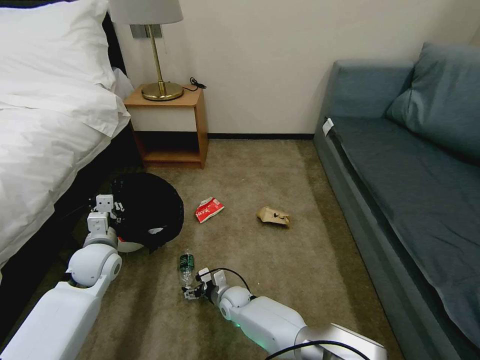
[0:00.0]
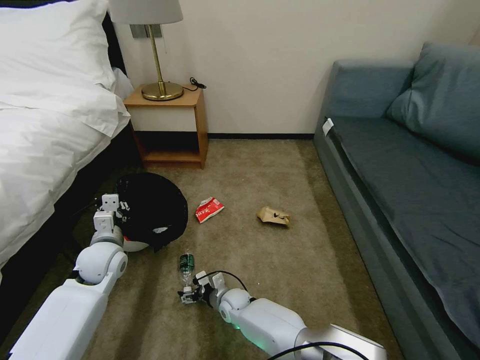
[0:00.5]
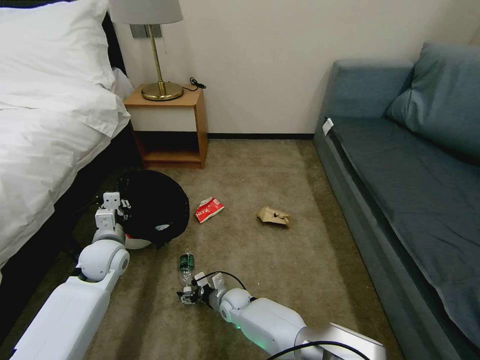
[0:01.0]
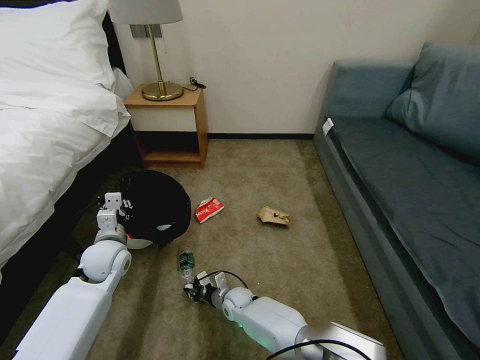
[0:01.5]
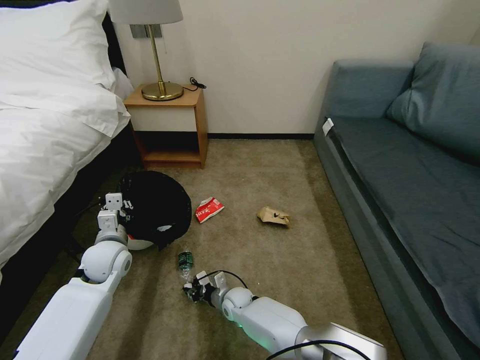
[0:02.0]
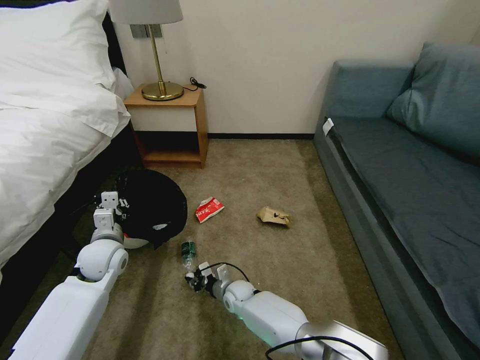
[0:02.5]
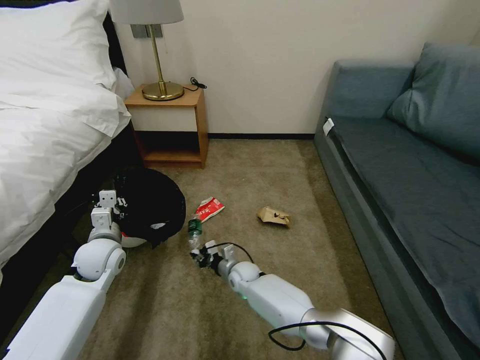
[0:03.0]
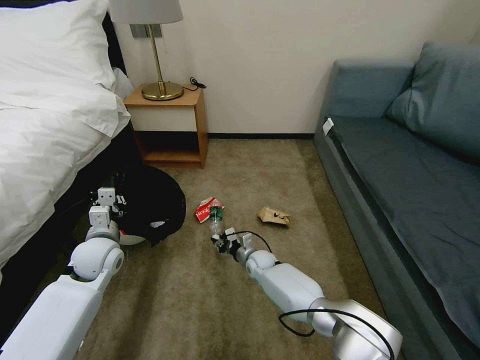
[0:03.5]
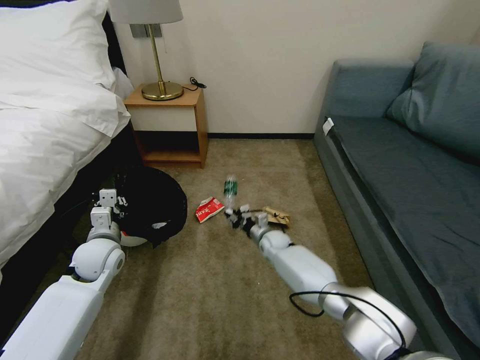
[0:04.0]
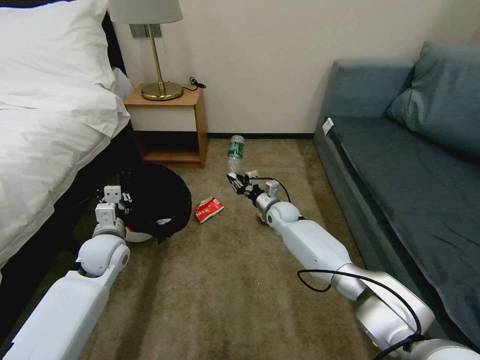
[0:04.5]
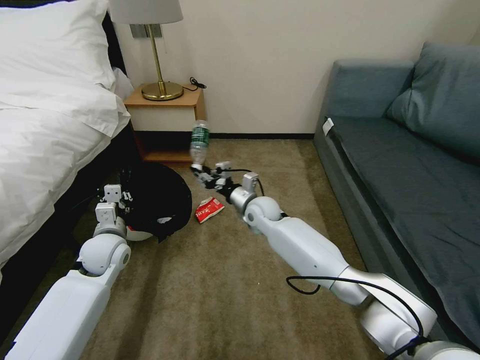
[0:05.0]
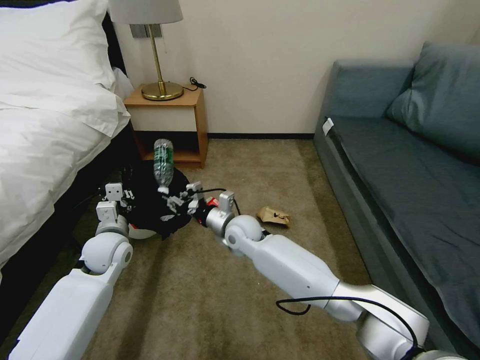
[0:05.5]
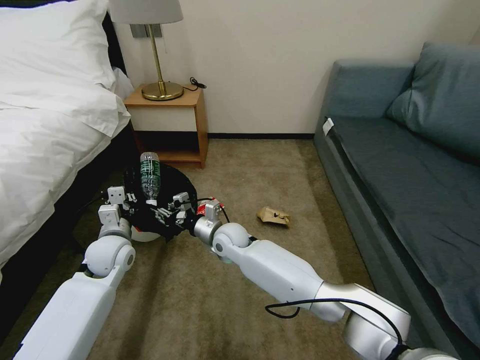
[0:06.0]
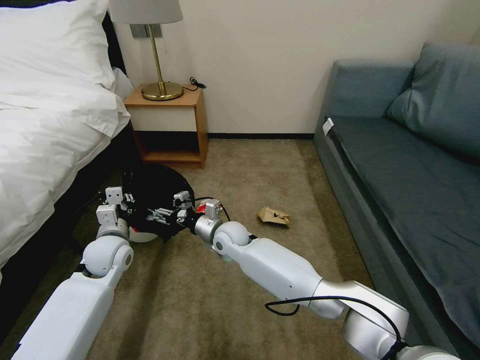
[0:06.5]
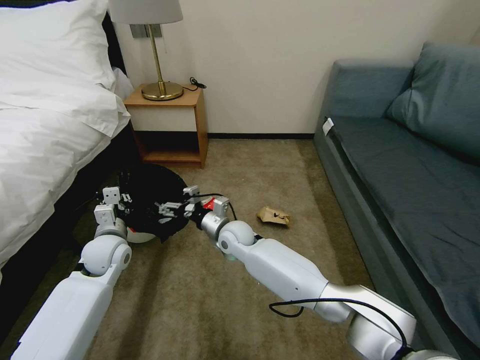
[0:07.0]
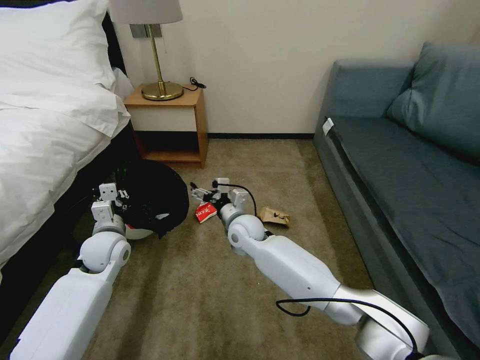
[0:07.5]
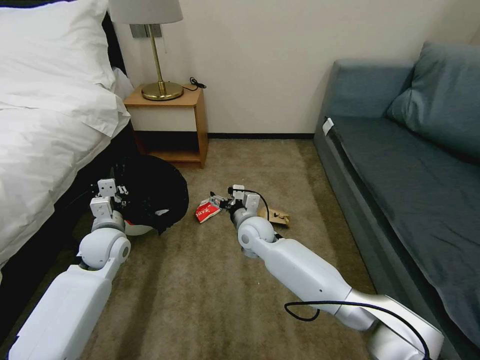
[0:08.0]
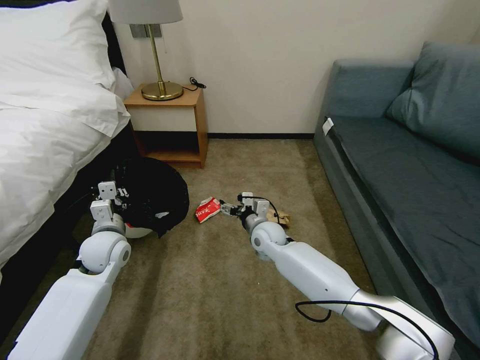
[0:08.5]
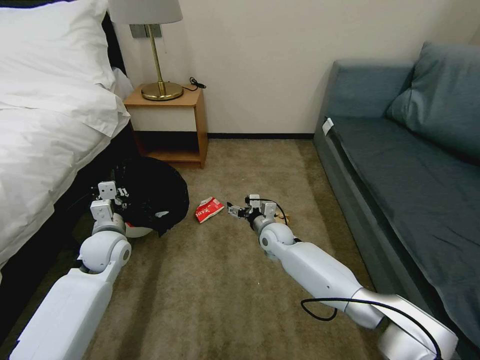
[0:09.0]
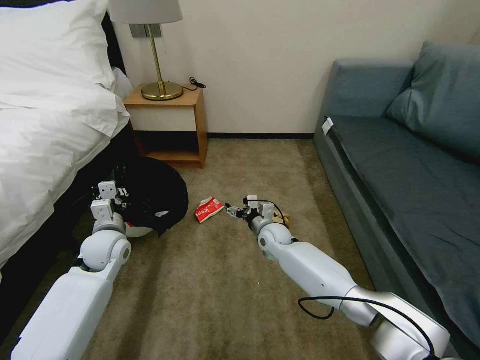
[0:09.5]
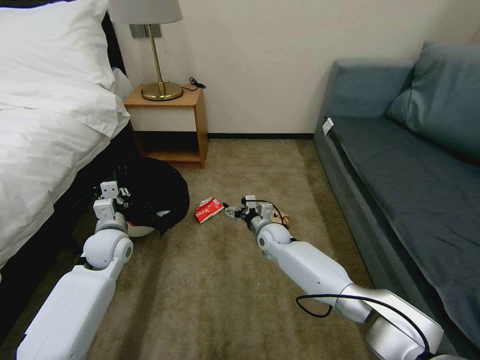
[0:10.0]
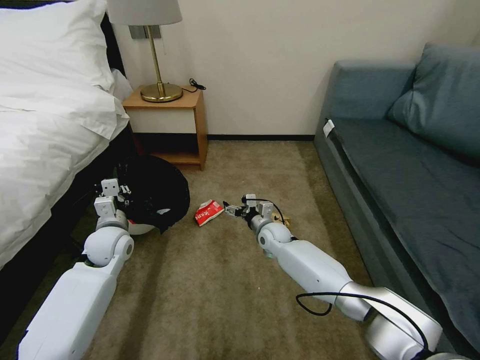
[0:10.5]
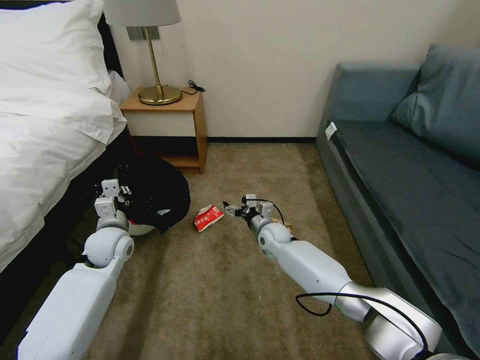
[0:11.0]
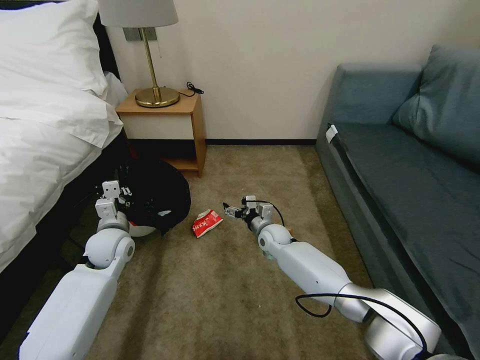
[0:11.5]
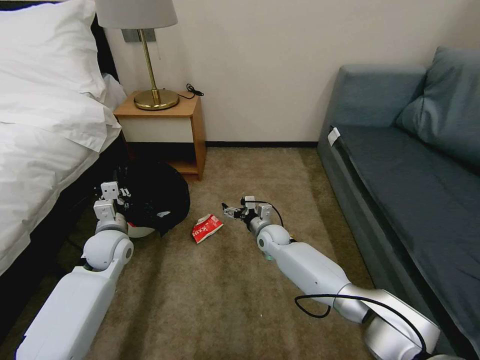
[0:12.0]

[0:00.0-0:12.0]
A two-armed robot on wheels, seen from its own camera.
Task of the whole recording: Pick up the trash bin, then pick up the garbage on the floor and place it into the trash bin.
0:00.0 to 0:02.0: The right gripper closes.
0:02.0 to 0:04.0: The right gripper heads forward, to the right and upward, covering approximately 20 cm.
0:04.0 to 0:06.0: The right gripper travels to the left, upward and backward by approximately 20 cm.
0:06.0 to 0:08.0: The right gripper is displaced to the right by some 5 cm, and opens its fingers.
0:08.0 to 0:10.0: The right gripper goes some 10 cm downward and to the right.
0:10.0 to 0:12.0: Neither gripper changes place.

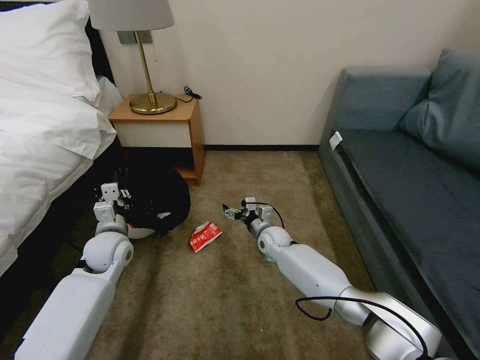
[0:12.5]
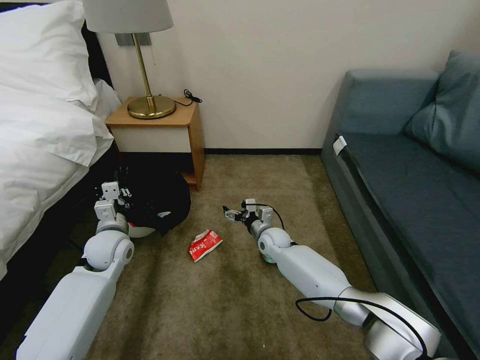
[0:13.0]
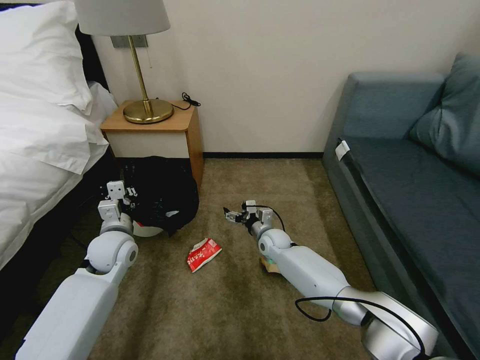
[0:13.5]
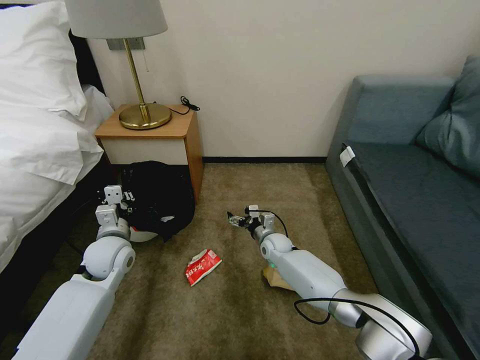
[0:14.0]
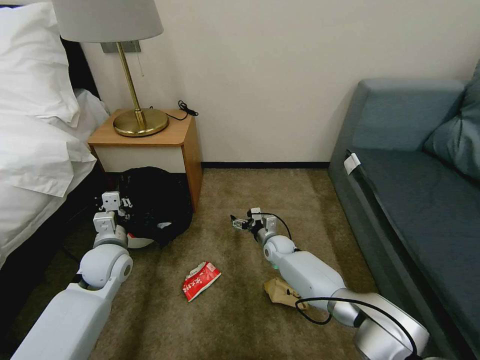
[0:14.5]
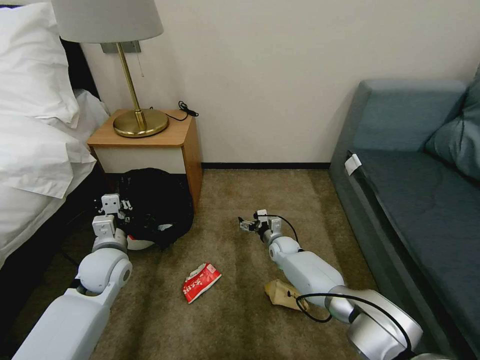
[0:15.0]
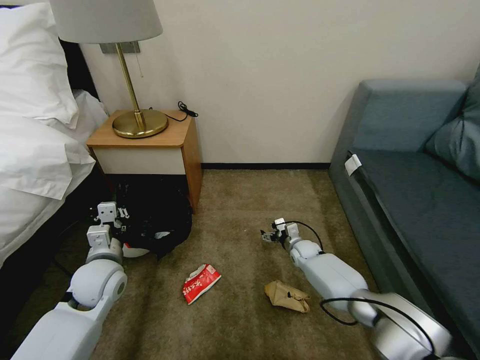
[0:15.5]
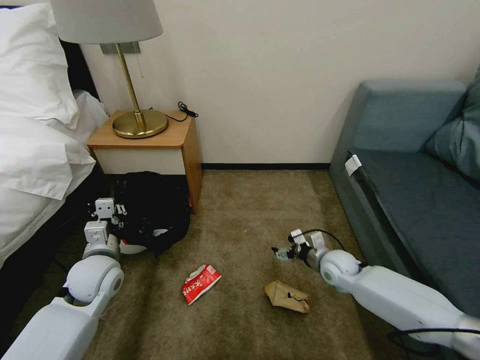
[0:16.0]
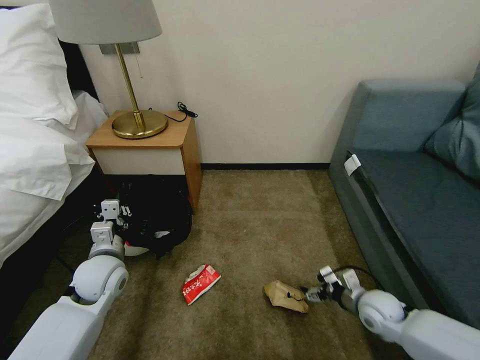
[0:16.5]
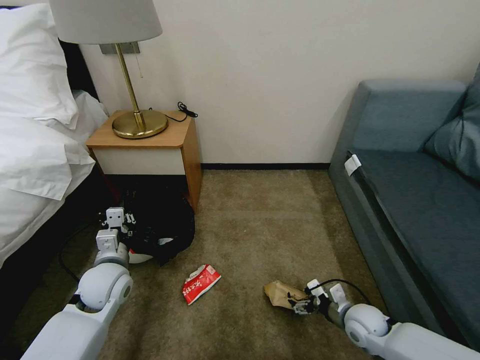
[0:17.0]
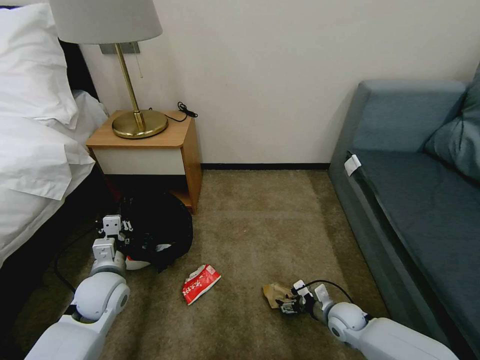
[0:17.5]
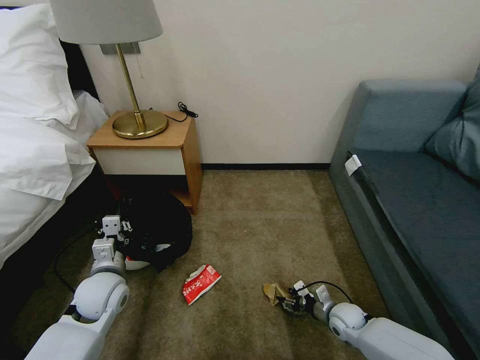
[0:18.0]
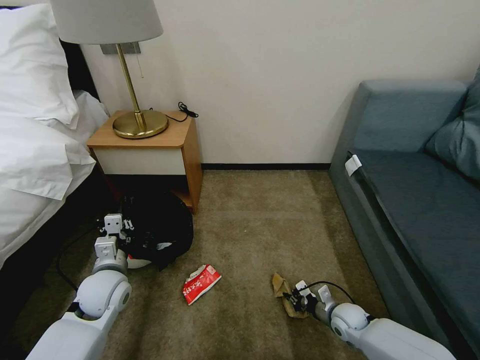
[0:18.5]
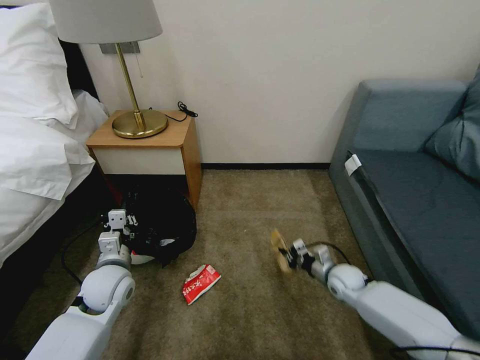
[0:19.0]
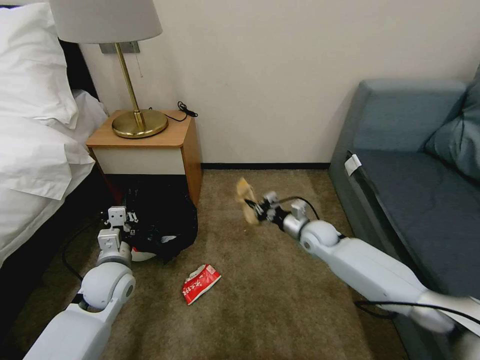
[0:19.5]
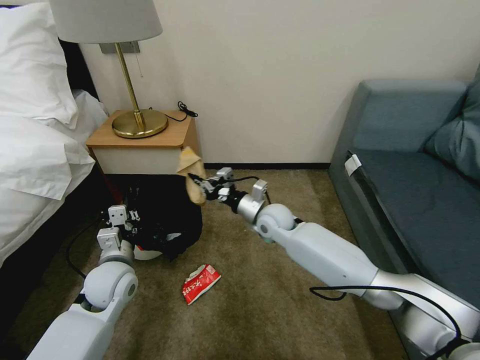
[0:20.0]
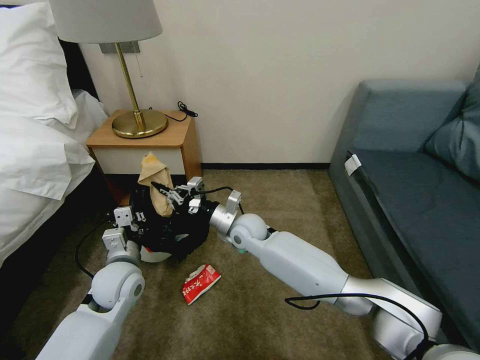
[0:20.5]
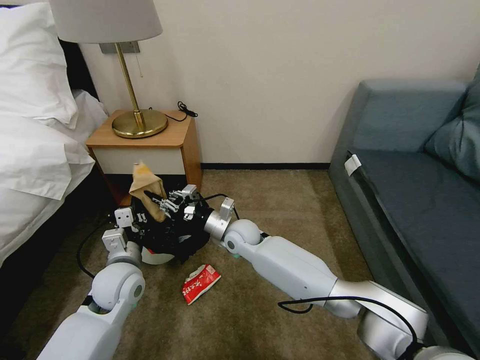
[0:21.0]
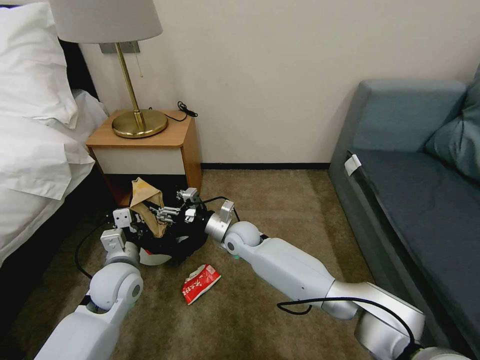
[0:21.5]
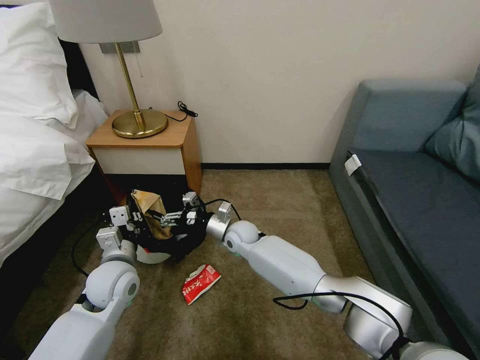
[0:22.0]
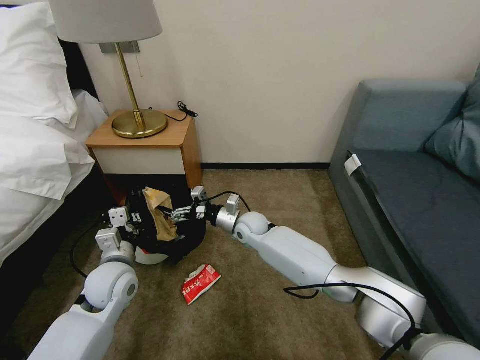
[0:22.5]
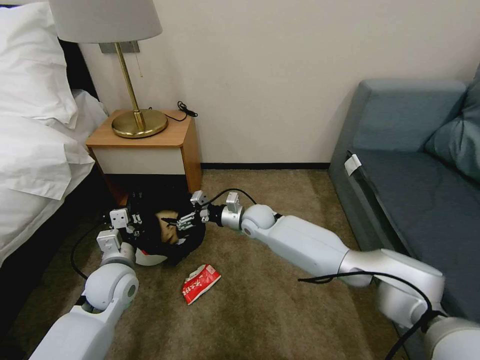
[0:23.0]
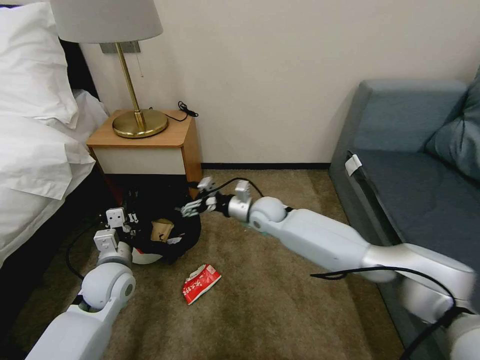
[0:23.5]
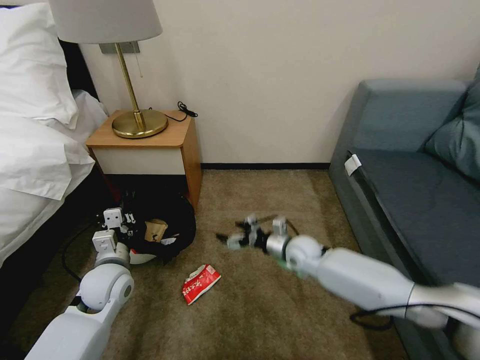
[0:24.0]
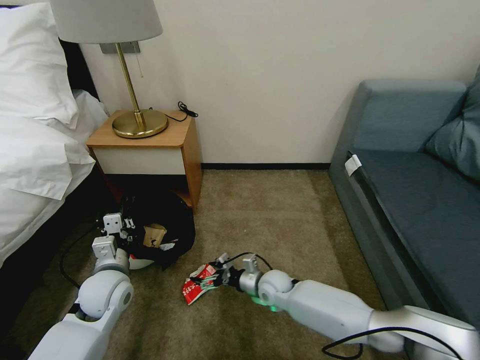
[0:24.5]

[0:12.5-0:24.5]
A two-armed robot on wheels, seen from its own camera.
Task of the whole recording: Pick up the trash bin, then pick up the garbage on the floor and place it into the trash bin.
0:12.5 to 0:14.5: The right gripper moves downward, about 5 cm.
0:14.5 to 0:16.5: The right gripper moves to the right and backward, roughly 30 cm.
0:16.5 to 0:18.5: The right gripper heads downward, covering approximately 10 cm, and closes up.
0:18.5 to 0:20.5: The right gripper moves to the left, upward and forward, some 40 cm.
0:20.5 to 0:22.5: The right gripper ends up some 5 cm from where it was, and opens up.
0:22.5 to 0:24.5: The right gripper travels backward, downward and to the right by roughly 20 cm.

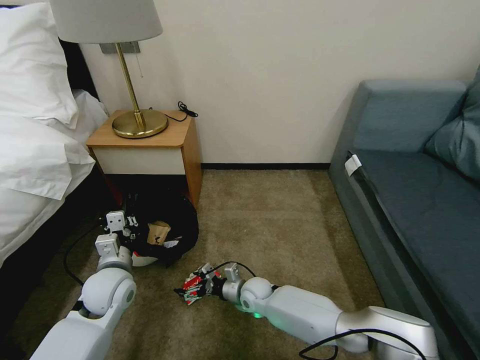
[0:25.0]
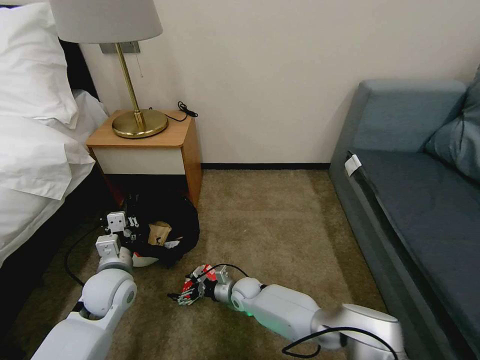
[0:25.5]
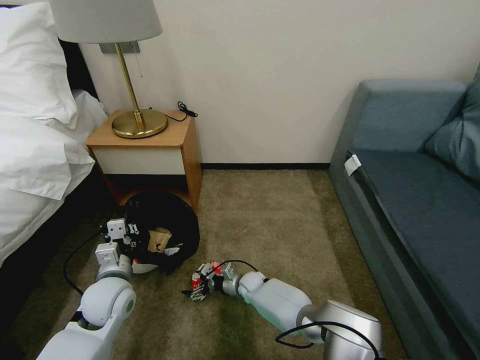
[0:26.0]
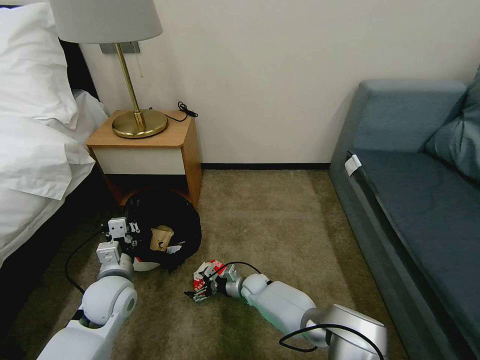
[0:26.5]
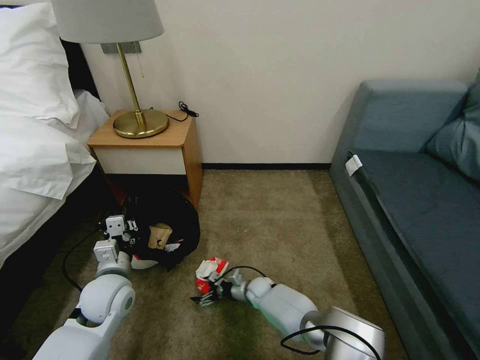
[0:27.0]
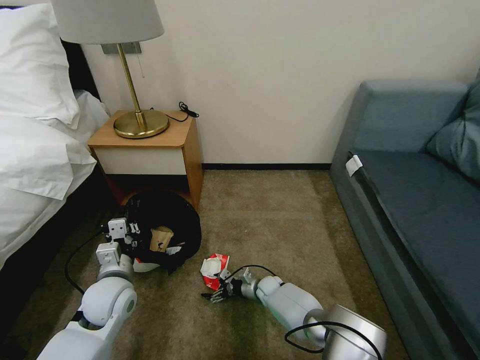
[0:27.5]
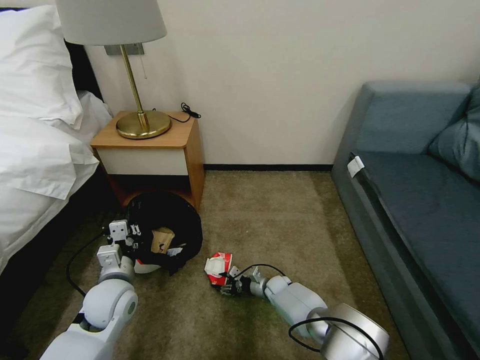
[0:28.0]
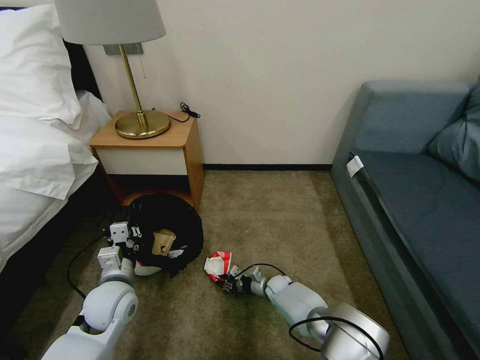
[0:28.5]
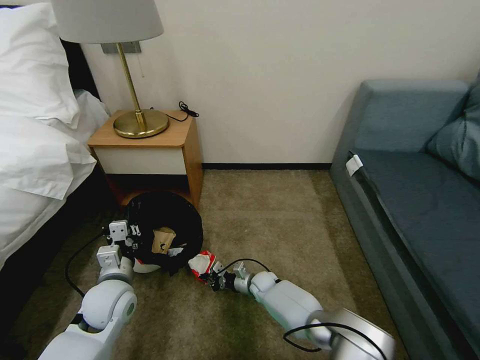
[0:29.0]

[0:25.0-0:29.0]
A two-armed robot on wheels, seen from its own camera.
Task of the whole recording: Pick up the trash bin, then pick up the garbage on the floor and place it into the trash bin.
0:25.0 to 0:27.0: The right gripper moves downward, approximately 10 cm.
0:27.0 to 0:29.0: The right gripper closes.
